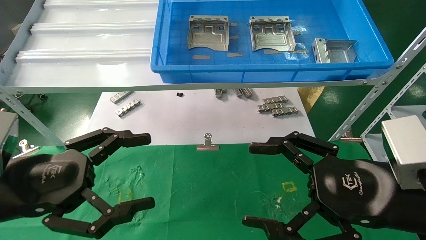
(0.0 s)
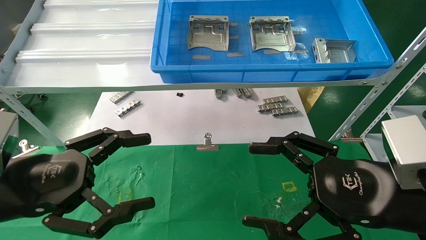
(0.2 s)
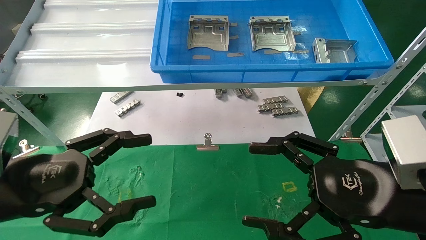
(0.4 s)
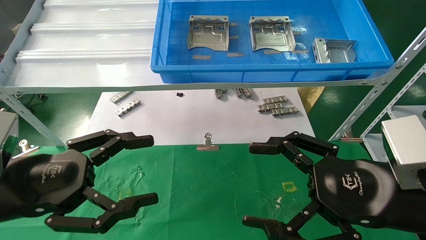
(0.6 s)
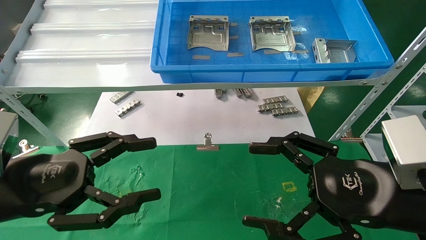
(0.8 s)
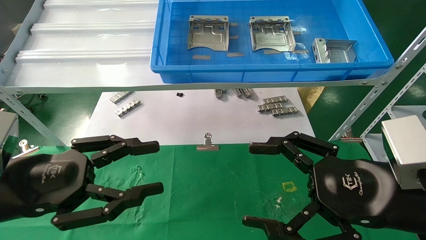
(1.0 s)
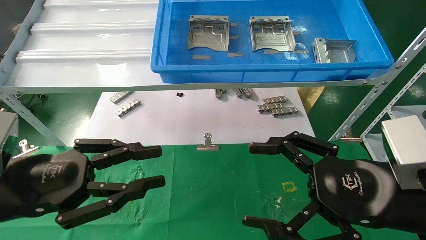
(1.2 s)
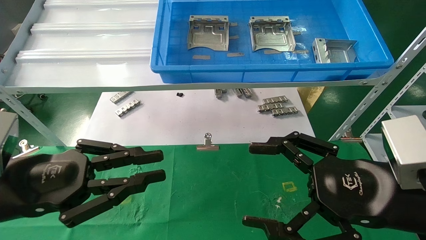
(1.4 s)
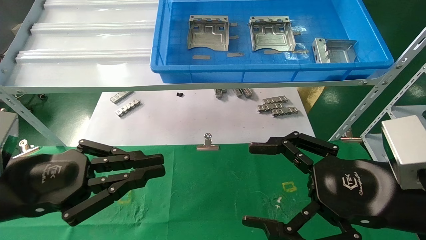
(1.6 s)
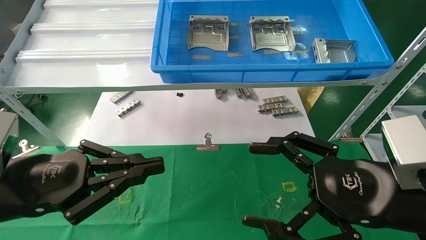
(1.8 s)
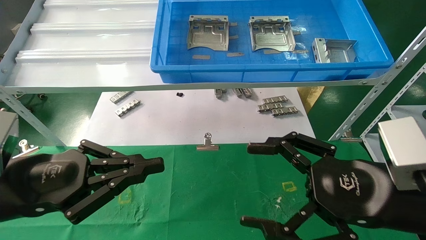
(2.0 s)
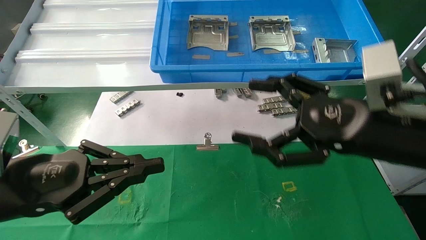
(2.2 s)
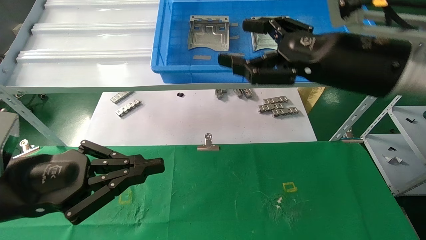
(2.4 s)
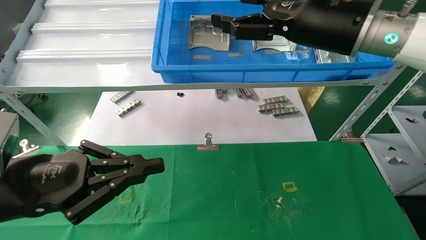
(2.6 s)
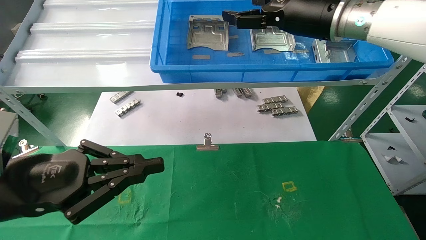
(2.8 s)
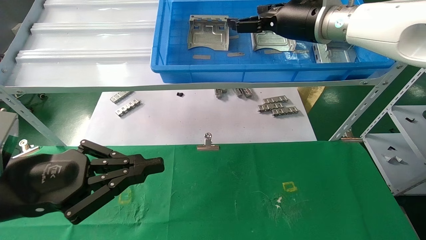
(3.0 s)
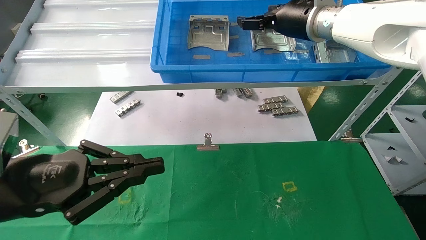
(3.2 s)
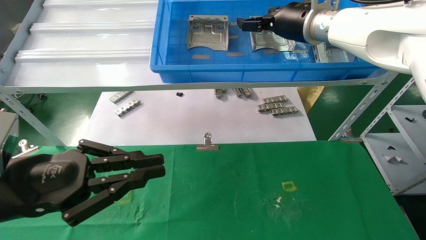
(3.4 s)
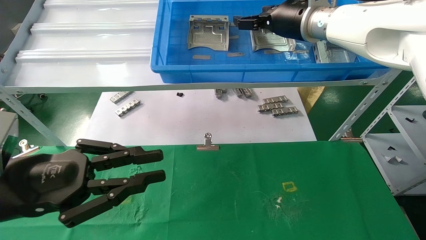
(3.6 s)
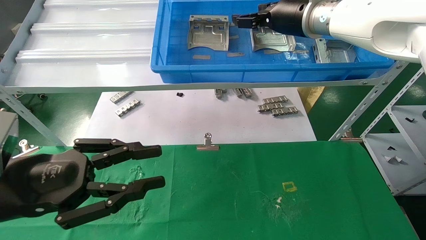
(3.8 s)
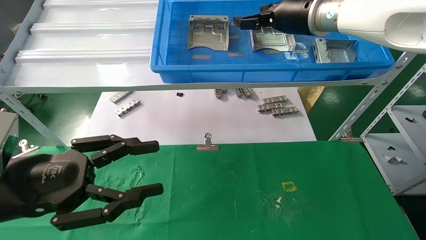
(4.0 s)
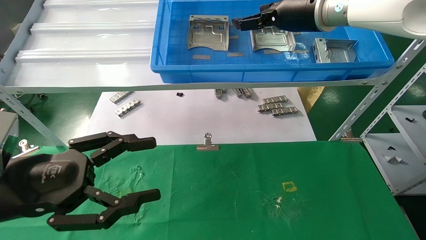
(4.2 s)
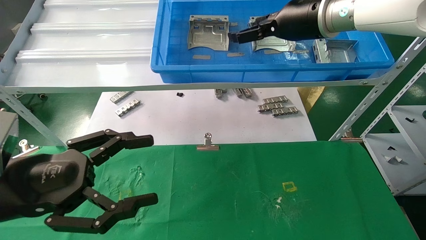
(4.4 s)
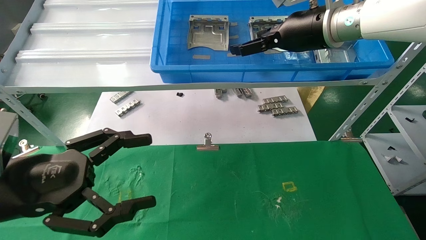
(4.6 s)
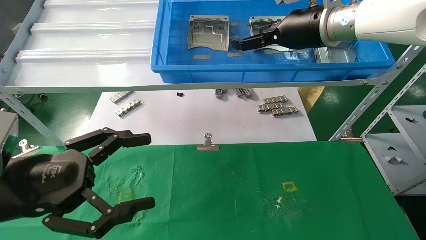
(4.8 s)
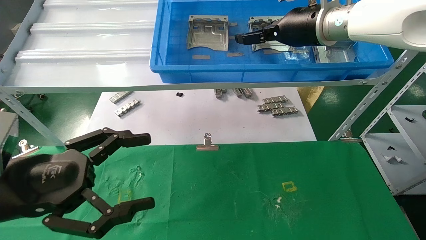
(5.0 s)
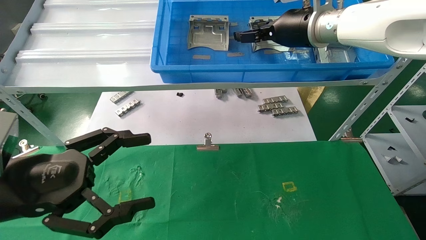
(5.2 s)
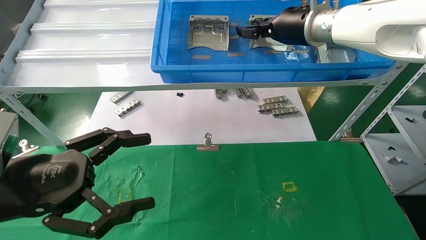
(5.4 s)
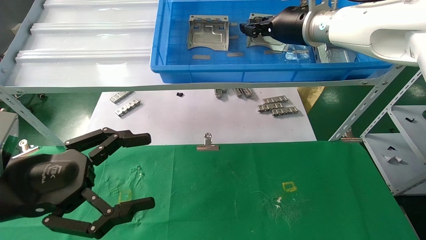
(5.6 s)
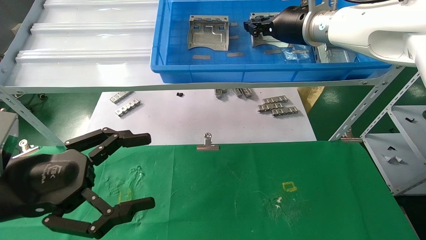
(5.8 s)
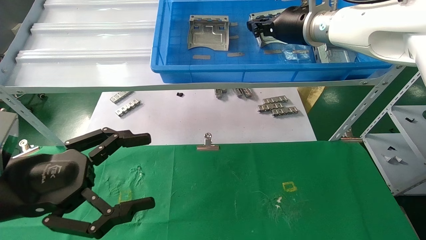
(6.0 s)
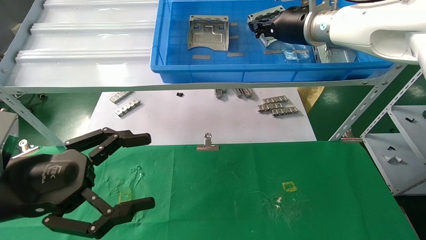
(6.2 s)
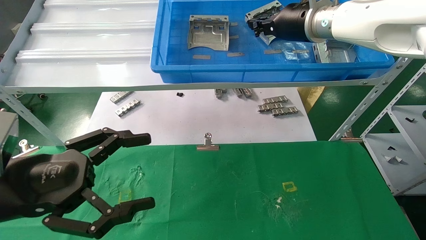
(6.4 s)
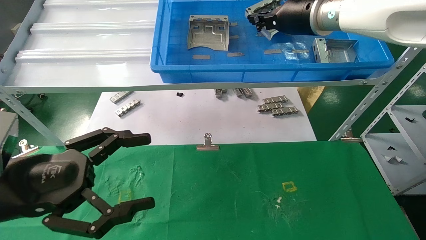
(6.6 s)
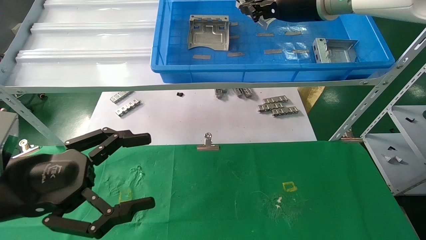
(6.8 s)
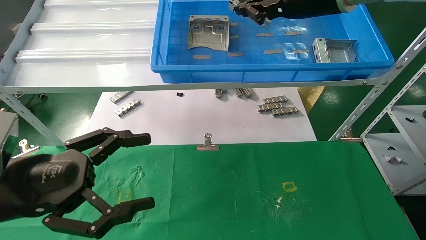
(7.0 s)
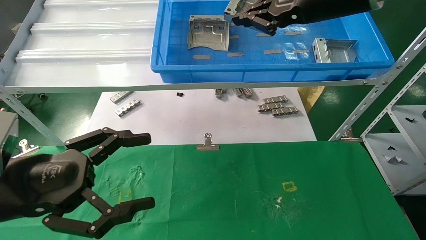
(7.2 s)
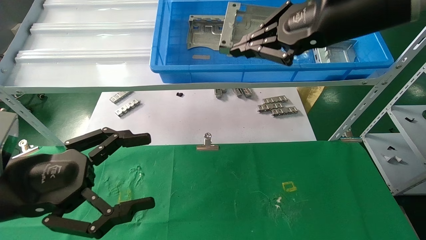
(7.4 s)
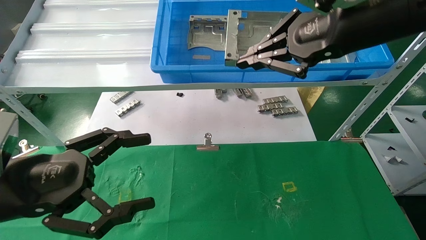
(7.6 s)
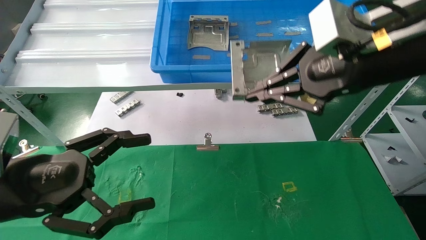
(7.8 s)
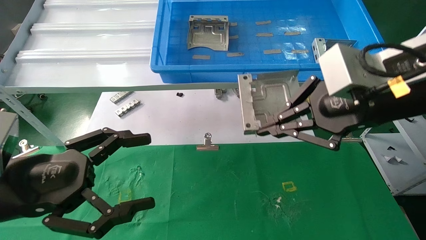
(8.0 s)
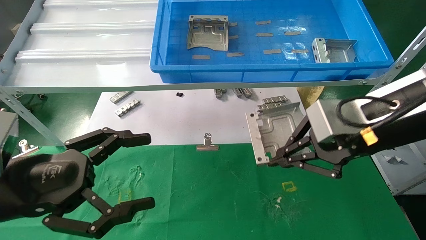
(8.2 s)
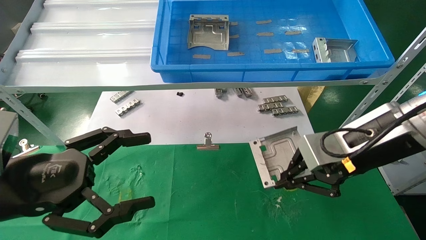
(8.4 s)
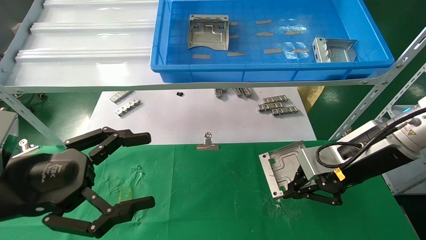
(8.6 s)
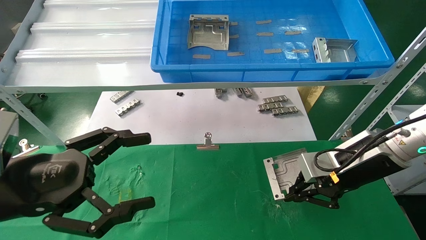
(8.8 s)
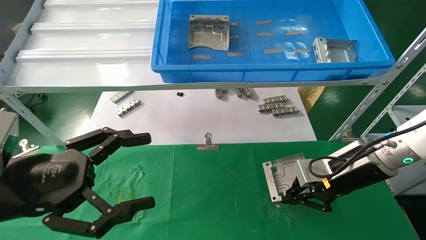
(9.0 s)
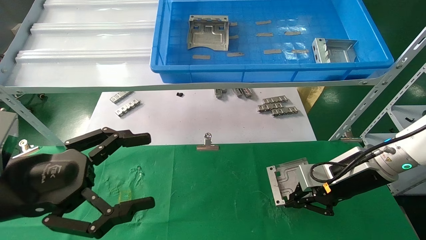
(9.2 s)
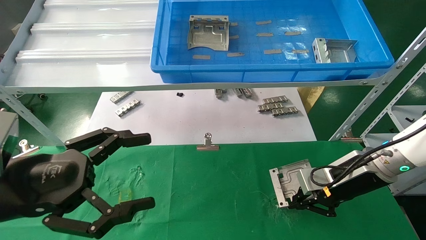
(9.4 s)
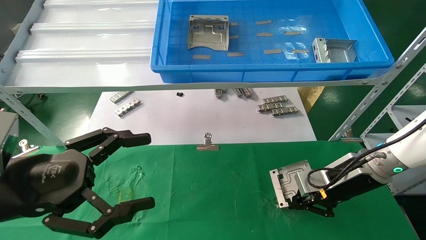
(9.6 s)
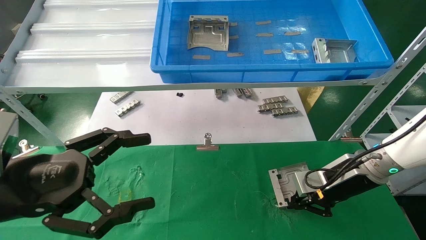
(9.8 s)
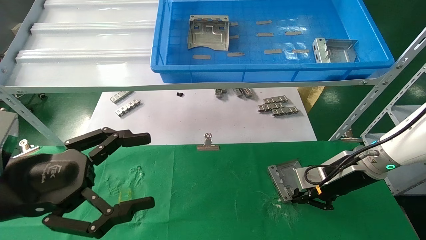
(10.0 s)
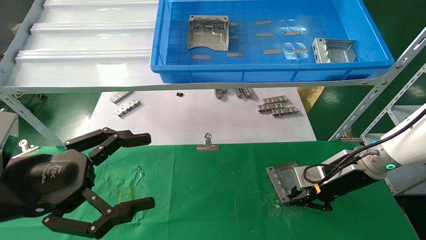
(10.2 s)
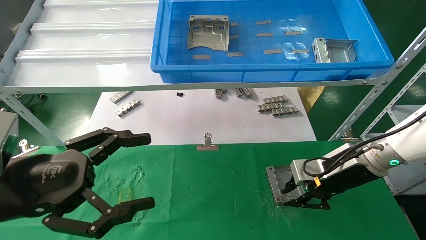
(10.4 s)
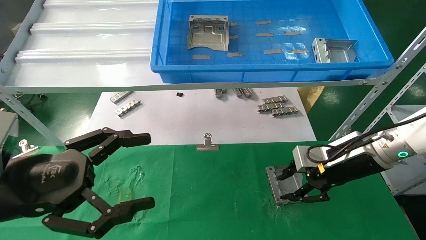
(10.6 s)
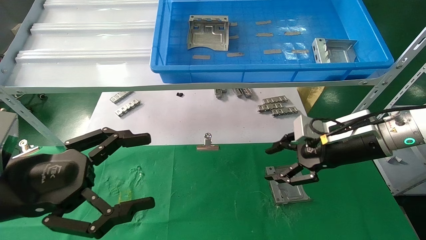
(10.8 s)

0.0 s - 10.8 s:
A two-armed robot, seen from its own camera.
Task of the whole recording: use the mechanical arm to pick up the parts and place them on the table.
Step, 2.0 s - 7.4 s: Pick up the hard drive bracket from the feeding area.
0.0 s - 1.6 s: The left gripper closes its fingers.
1.6 s - 3.0 s: The right gripper is displaced forward and upward by roughly 30 cm.
3.0 s - 4.6 s: The left gripper opens up.
4.6 s - 6.2 s: The right gripper closes.
6.2 s - 7.8 s: The right gripper travels backward by roughly 20 cm.
7.8 s - 9.2 s: The right gripper shifts about 25 cm downward and forward.
9.2 s - 10.8 s: The right gripper opens.

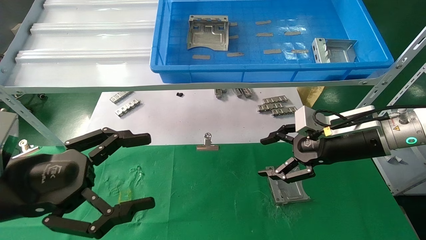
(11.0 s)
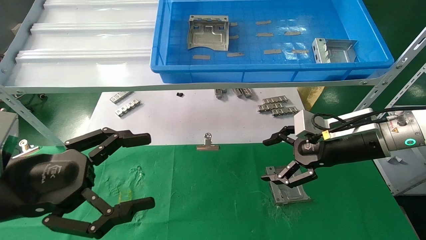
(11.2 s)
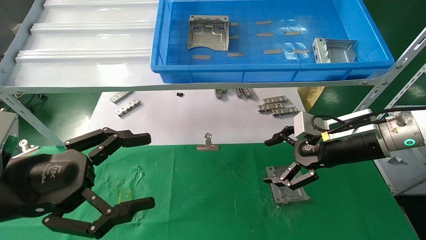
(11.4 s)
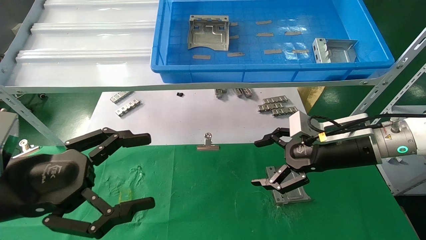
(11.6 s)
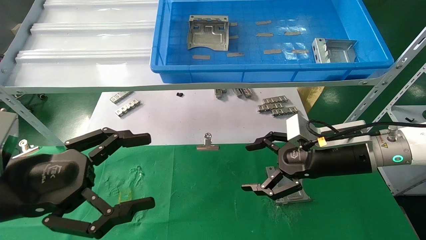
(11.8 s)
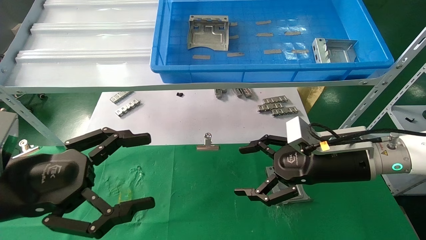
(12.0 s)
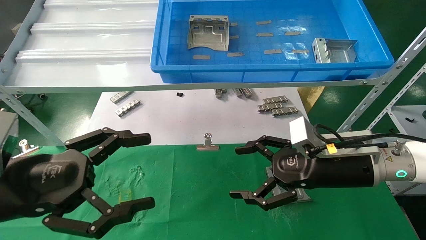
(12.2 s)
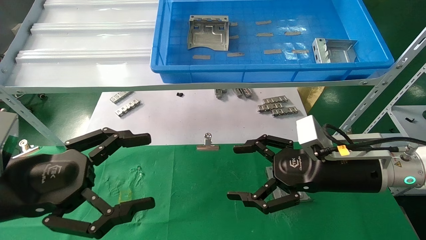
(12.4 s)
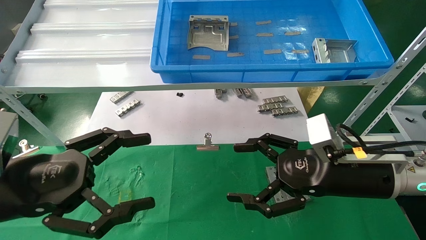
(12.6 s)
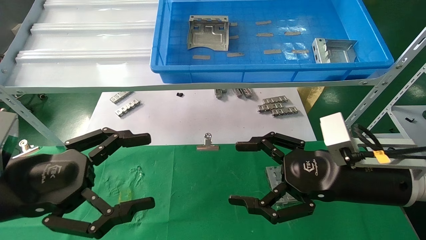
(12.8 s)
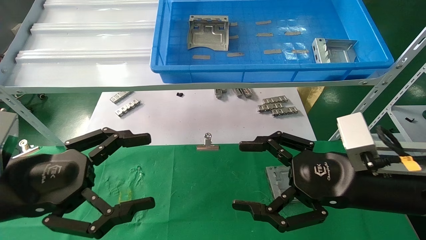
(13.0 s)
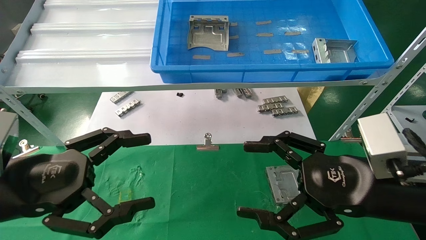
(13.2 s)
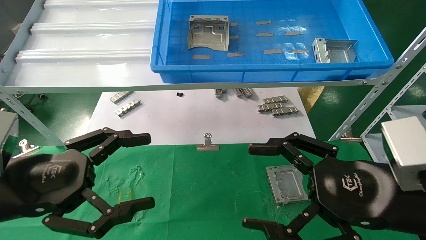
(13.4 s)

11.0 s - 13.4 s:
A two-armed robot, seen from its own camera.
Task of the whole recording: use the mechanical arm to pick up the parts and place them on the table.
11.0 s - 12.2 s: The right gripper changes place by about 5 cm, and opens up.
12.2 s - 13.4 s: The right gripper travels backward by about 10 cm.
